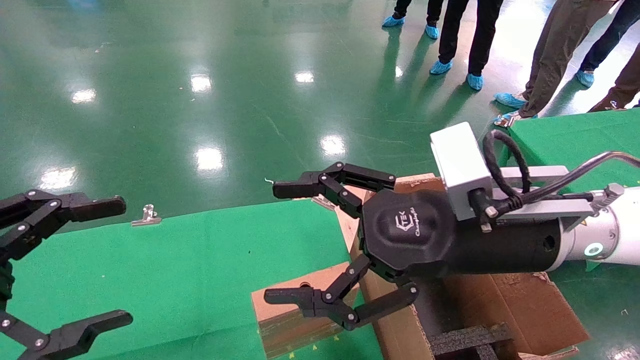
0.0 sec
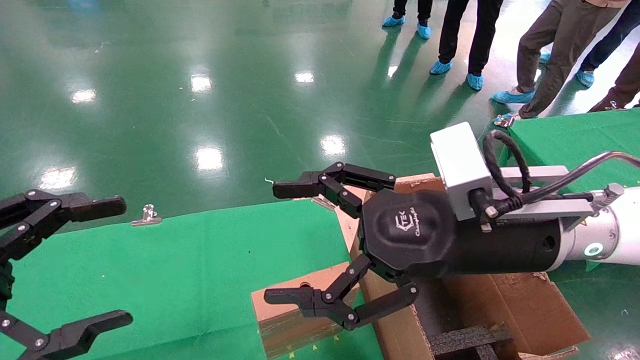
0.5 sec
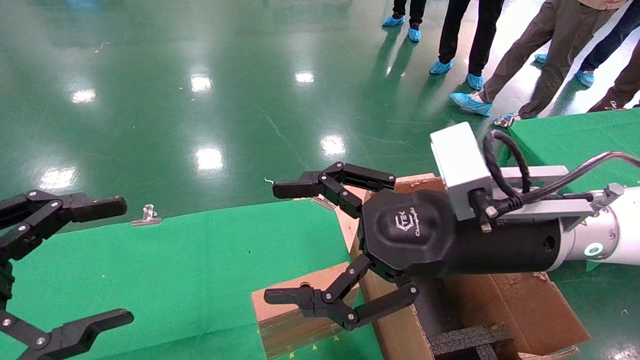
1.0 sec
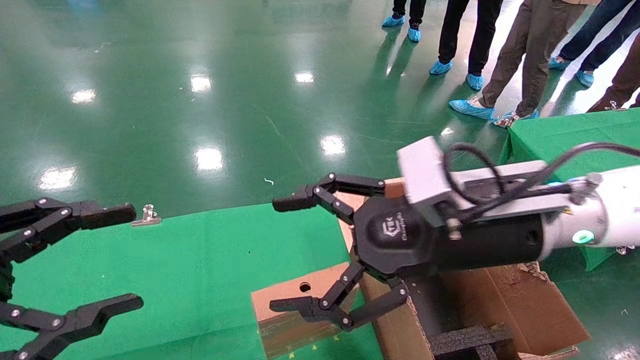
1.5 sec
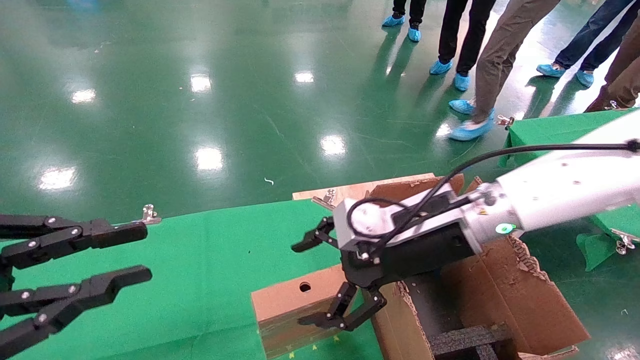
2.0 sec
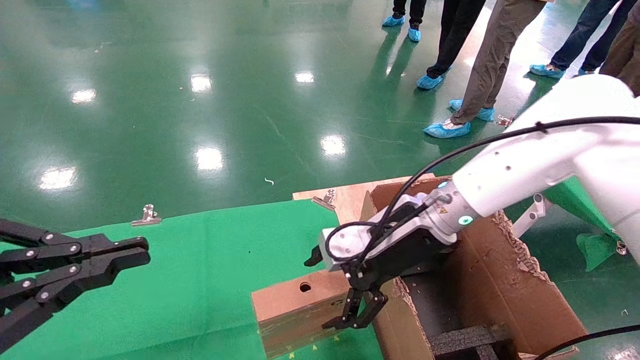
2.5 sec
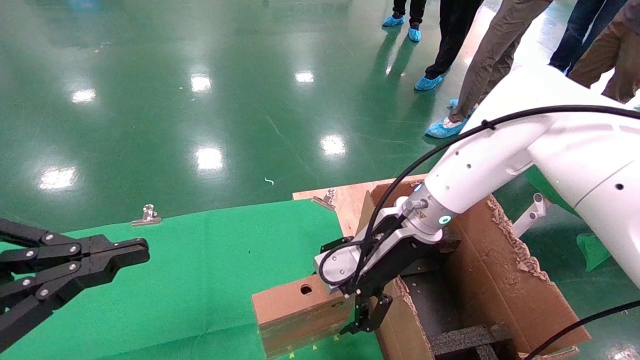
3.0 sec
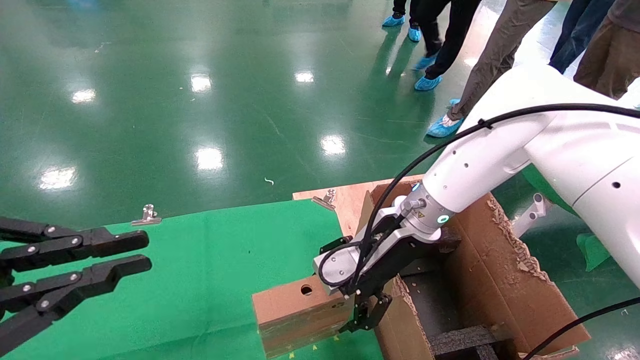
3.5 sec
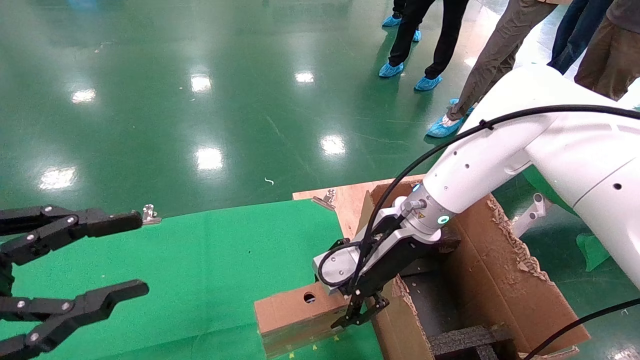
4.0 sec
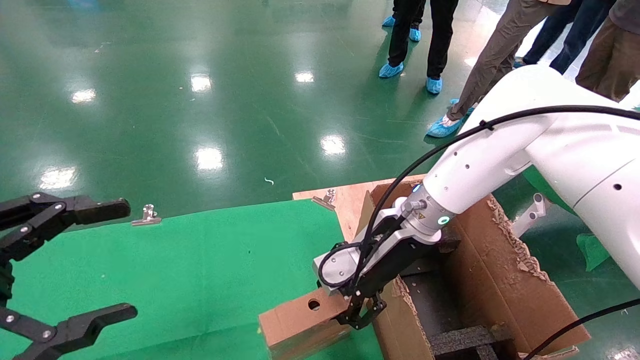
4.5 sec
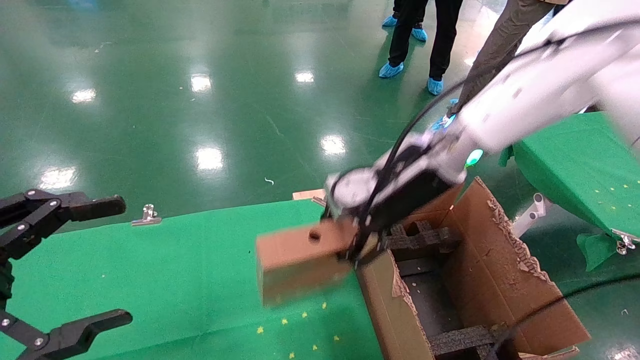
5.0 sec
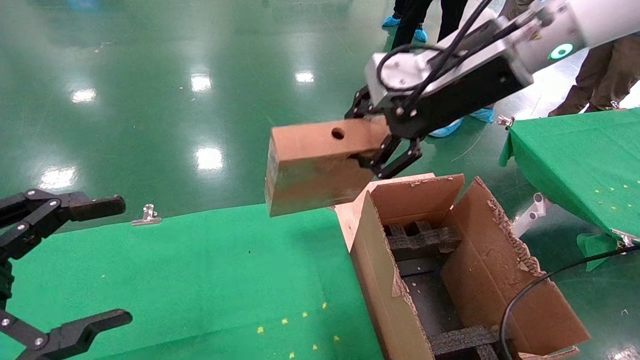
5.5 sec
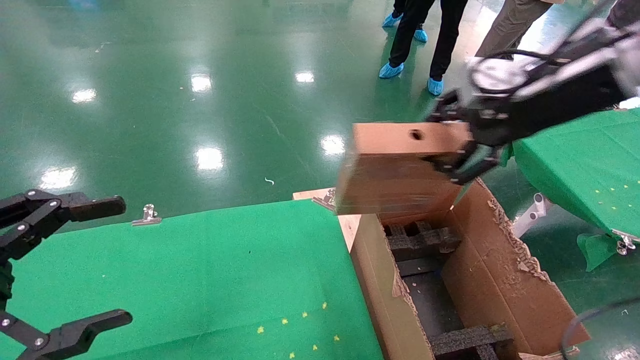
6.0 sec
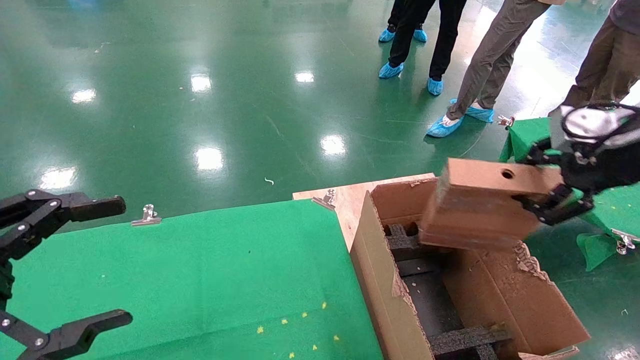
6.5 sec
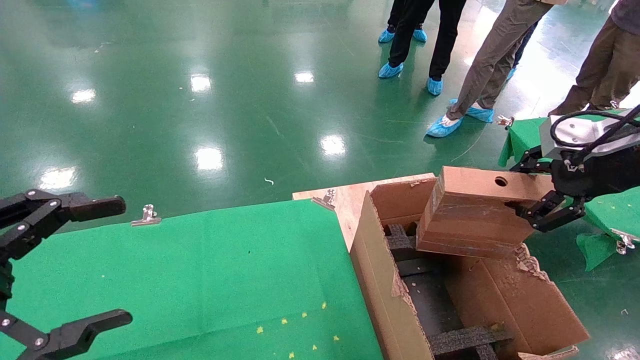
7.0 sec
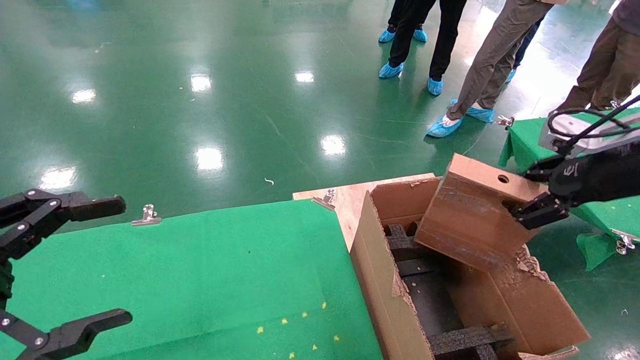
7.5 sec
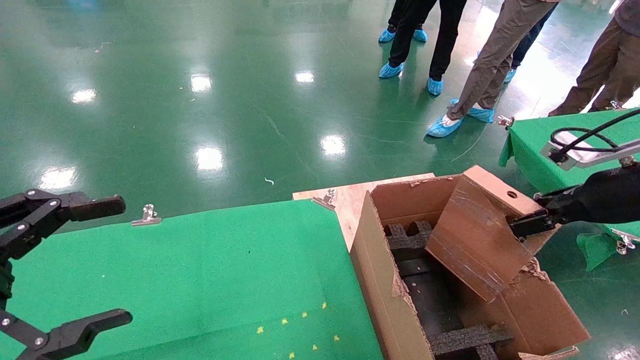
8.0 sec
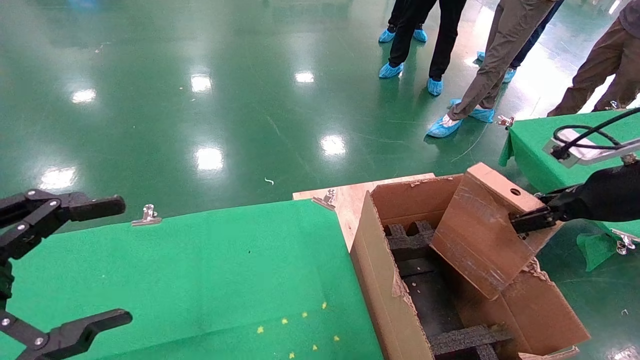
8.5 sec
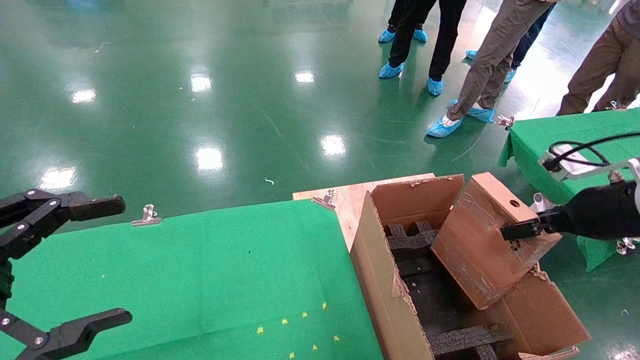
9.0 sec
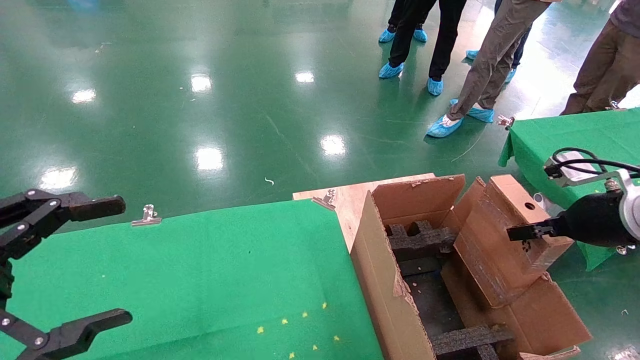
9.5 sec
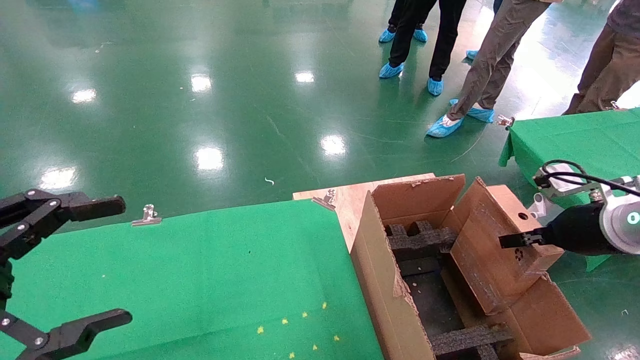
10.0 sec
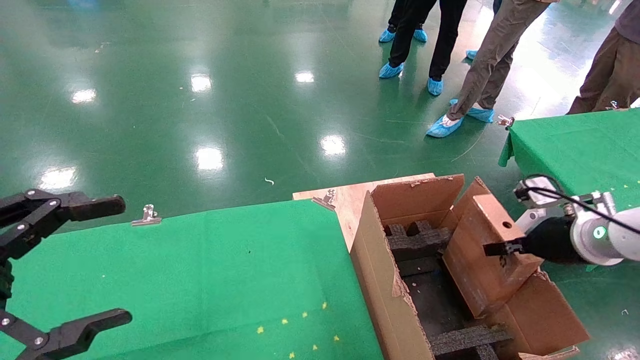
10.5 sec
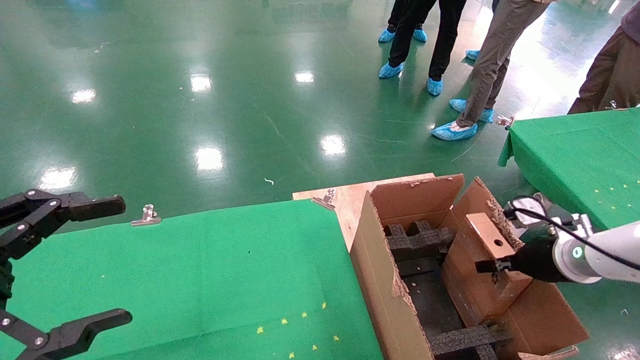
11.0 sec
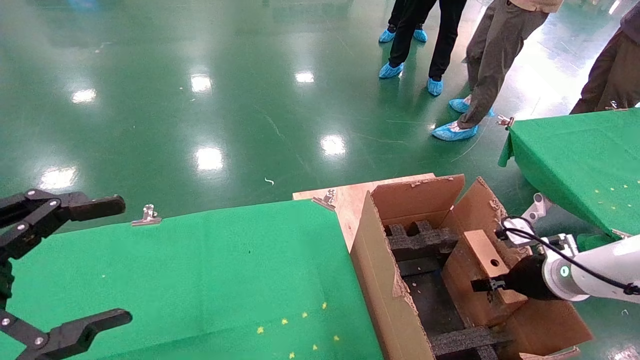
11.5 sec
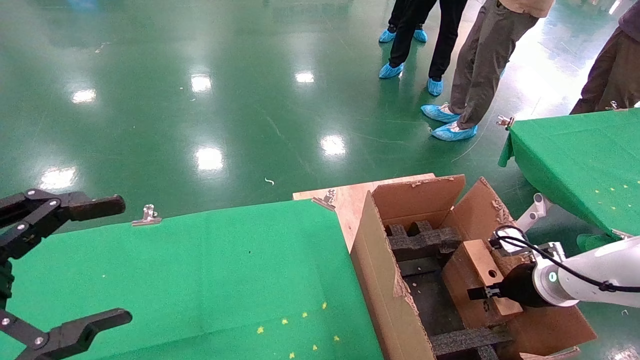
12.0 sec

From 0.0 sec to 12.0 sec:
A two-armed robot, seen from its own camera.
Task of the whole recording: using a robotic arm to pick up a cardboard box and palace it the carton.
Step, from 1.5 sec to 4.0 sec: Pick up the mouse and the power cord paper box.
From 0.0 sec to 2.0 sec: The right gripper travels forward by roughly 10 cm; the left gripper closes up.
From 2.0 sec to 4.0 sec: The left gripper closes and opens again, while the right gripper moves forward, some 5 cm, and closes its fingers.
From 4.0 sec to 6.0 sec: The left gripper opens, while the right gripper travels upward and to the right by about 25 cm, and closes.
From 6.0 sec to 8.0 sec: The right gripper is displaced to the right and downward by some 20 cm.
From 8.0 sec to 10.0 sec: The right gripper goes roughly 5 cm downward.
From 10.0 sec to 12.0 sec: The right gripper moves downward, roughly 15 cm.

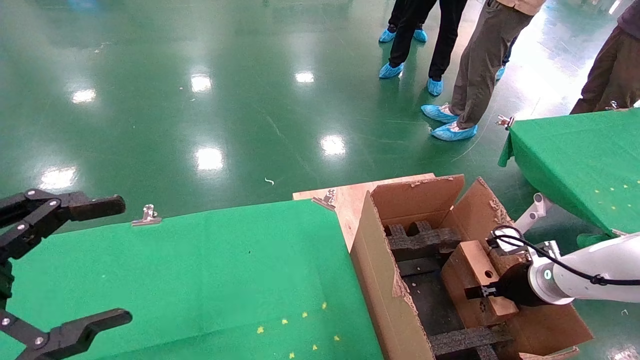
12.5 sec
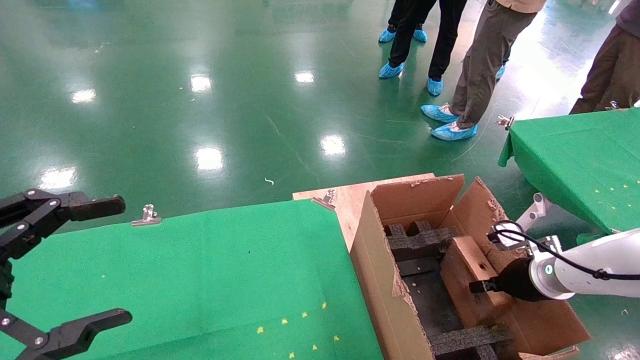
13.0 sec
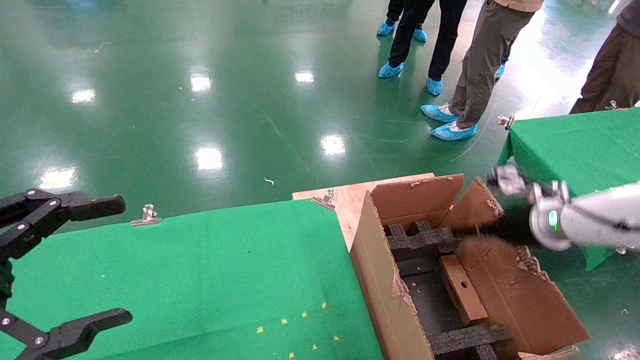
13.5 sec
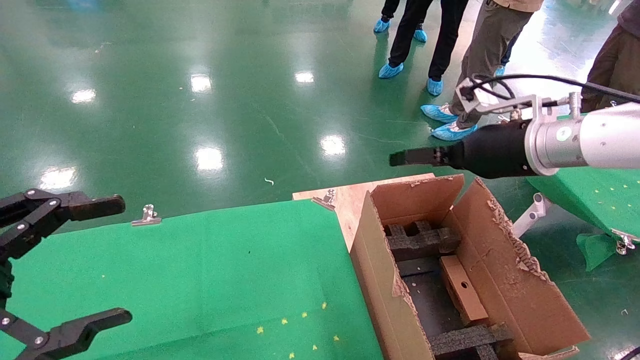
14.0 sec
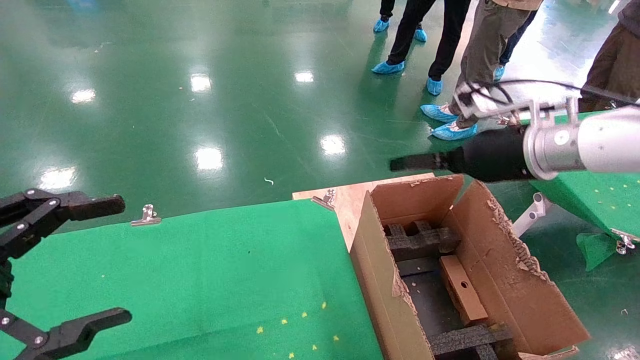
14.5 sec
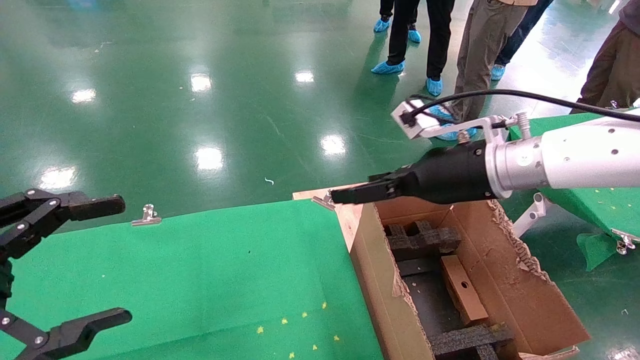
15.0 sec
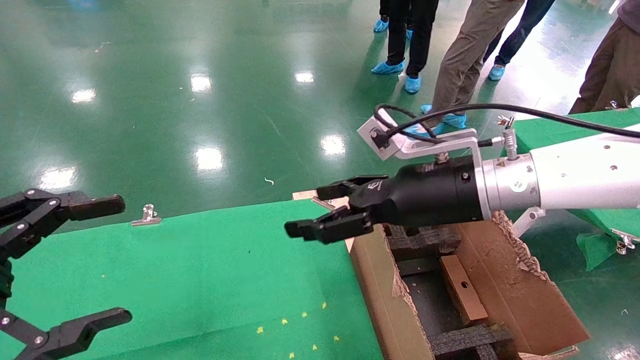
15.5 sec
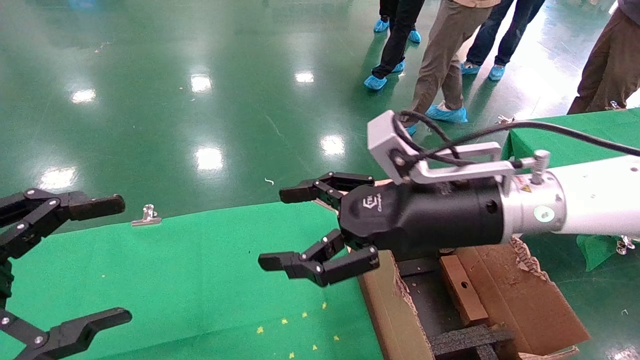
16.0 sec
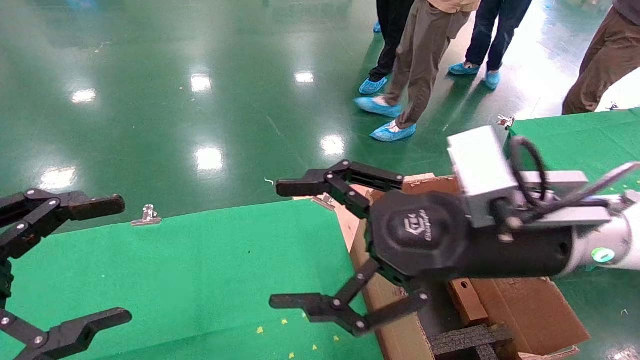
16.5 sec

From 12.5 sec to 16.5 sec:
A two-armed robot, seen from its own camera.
Task of the whole recording: using a robotic arm to pick up a cardboard box and palace it the carton.
From 12.5 sec to 14.5 sec: The right gripper travels upward and to the left by roughly 25 cm, and opens.
From 14.5 sec to 16.5 sec: The right gripper goes approximately 15 cm backward and to the left.

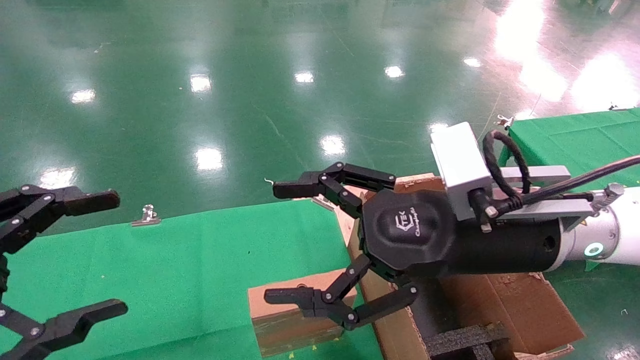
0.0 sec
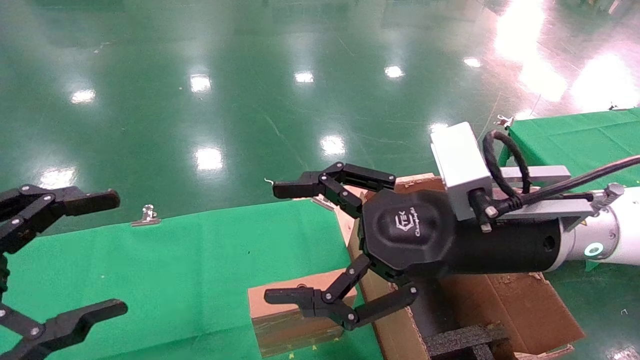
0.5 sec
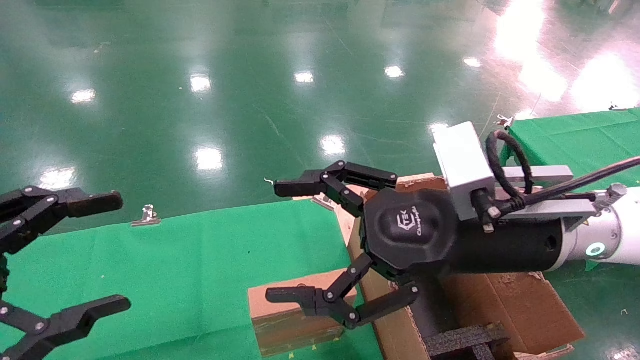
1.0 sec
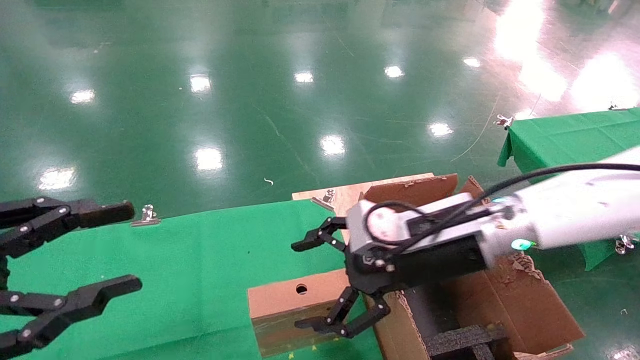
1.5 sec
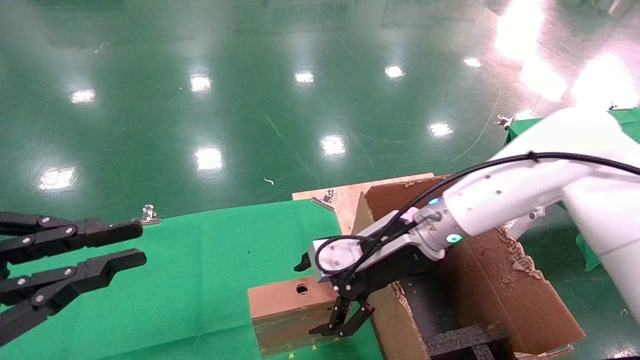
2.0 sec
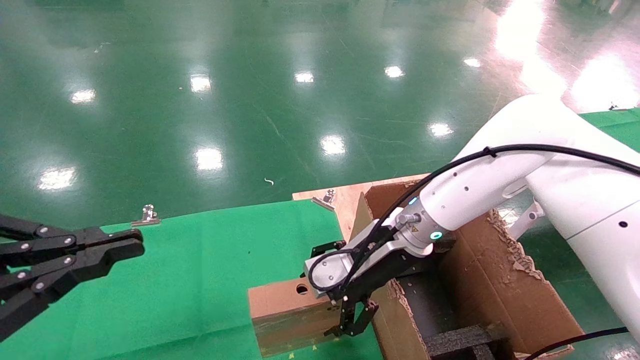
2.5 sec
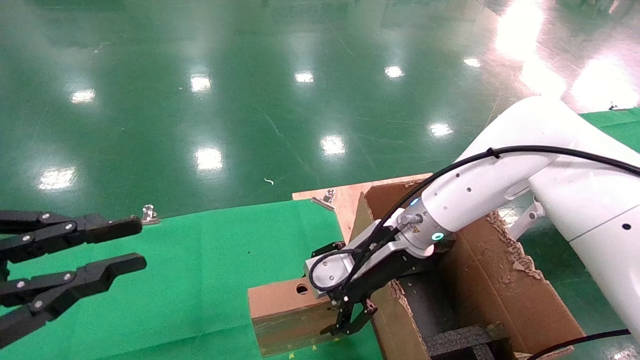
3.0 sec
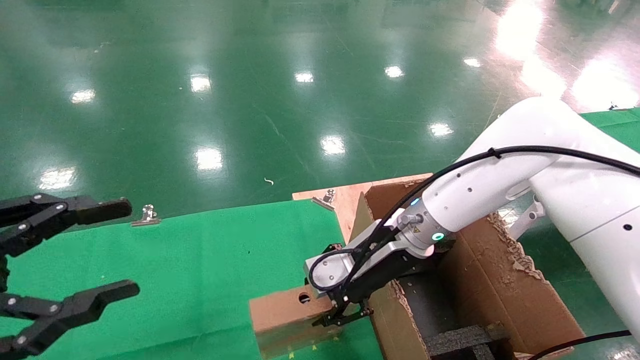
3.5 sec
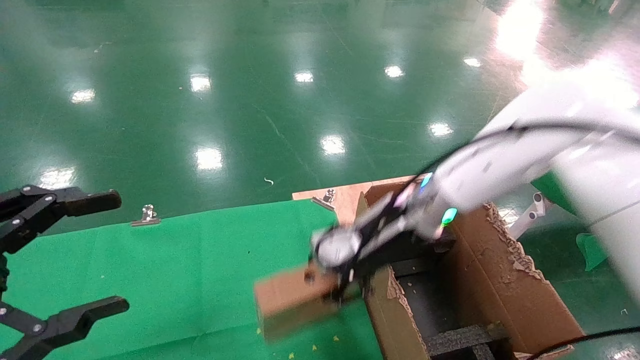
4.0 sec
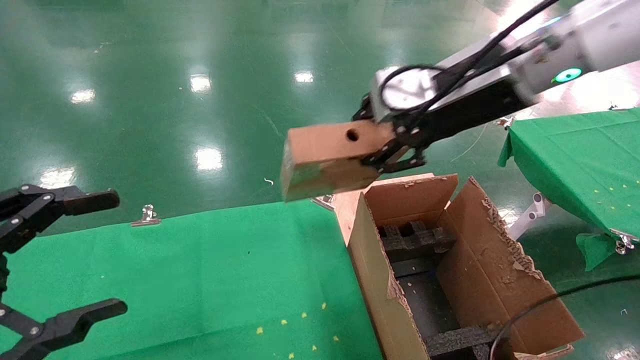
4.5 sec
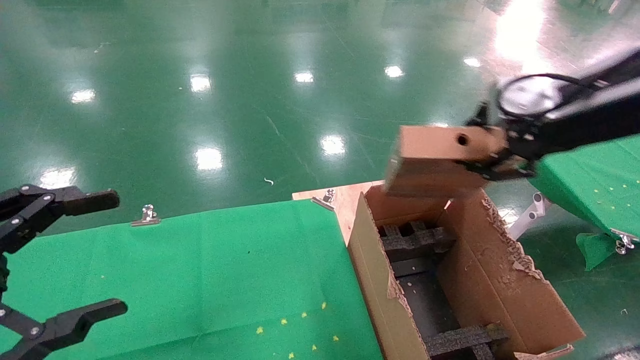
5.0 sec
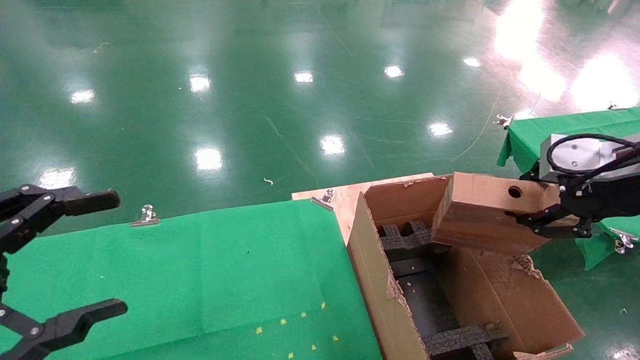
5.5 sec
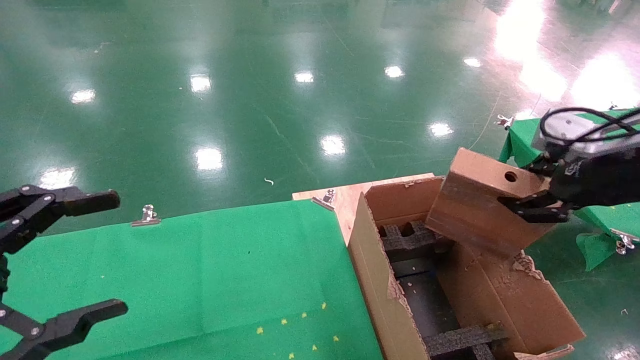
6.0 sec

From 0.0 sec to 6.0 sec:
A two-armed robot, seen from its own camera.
Task of the whole recording: using a robotic arm to pick up a cardboard box and palace it the carton.
Step, from 1.5 sec to 3.5 sec: Pick up the mouse and the power cord paper box.
From 0.0 sec to 2.0 sec: The right gripper goes some 15 cm forward and downward. The left gripper closes its fingers.
From 2.0 sec to 4.0 sec: The left gripper opens its fingers. Meanwhile the right gripper shifts roughly 5 cm upward, and closes.
From 4.0 sec to 6.0 sec: The right gripper heads to the right and backward, covering about 25 cm.
